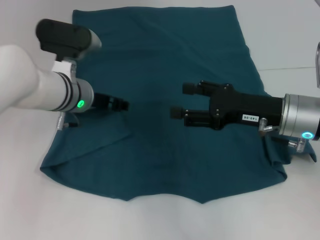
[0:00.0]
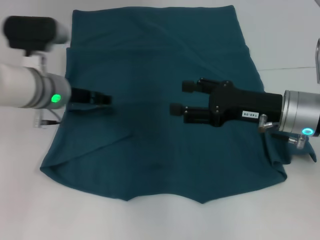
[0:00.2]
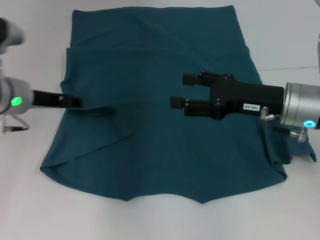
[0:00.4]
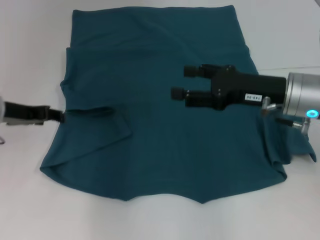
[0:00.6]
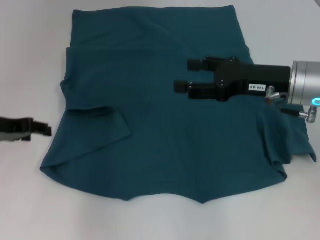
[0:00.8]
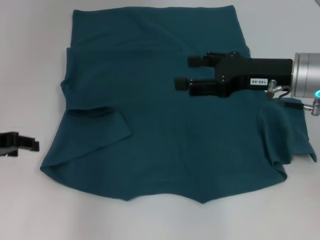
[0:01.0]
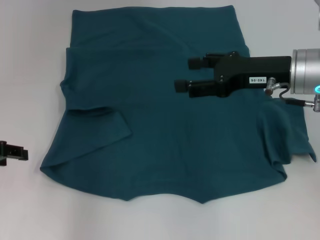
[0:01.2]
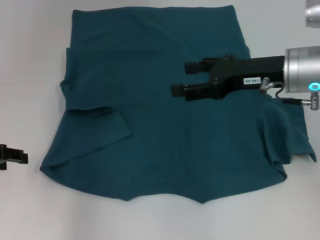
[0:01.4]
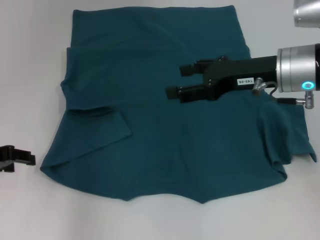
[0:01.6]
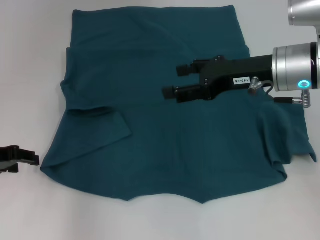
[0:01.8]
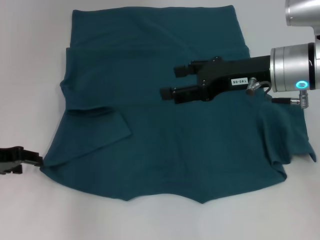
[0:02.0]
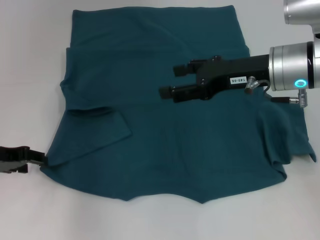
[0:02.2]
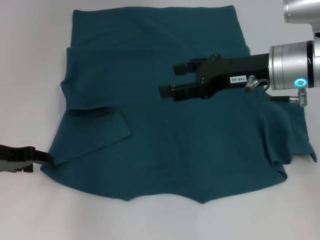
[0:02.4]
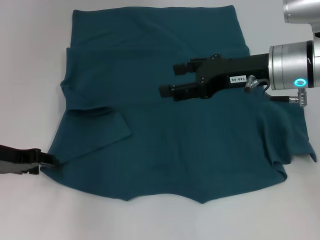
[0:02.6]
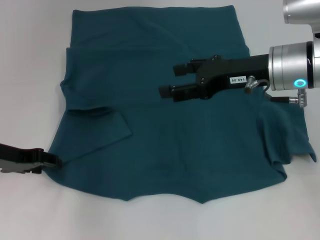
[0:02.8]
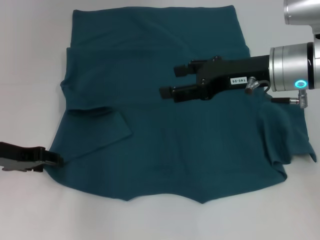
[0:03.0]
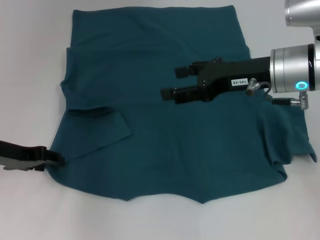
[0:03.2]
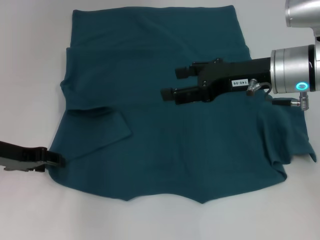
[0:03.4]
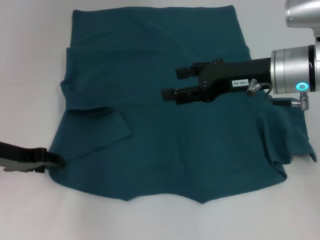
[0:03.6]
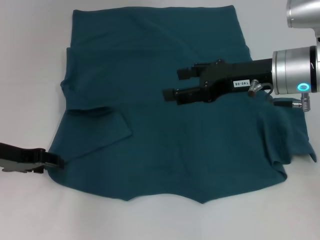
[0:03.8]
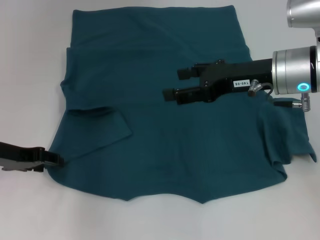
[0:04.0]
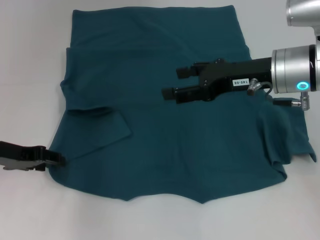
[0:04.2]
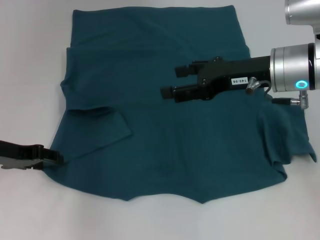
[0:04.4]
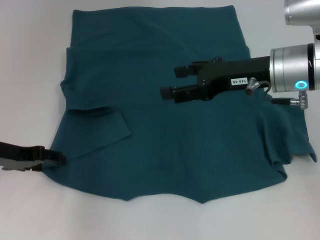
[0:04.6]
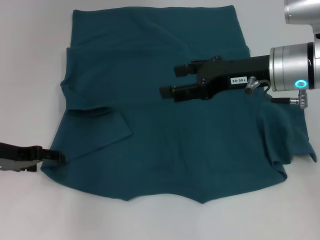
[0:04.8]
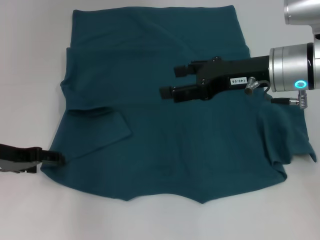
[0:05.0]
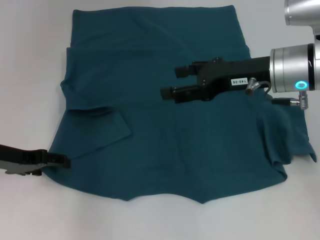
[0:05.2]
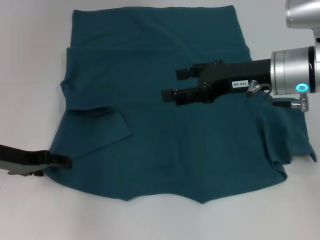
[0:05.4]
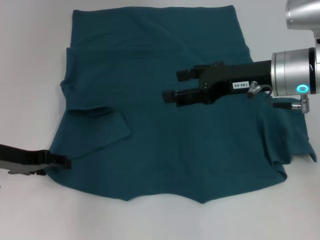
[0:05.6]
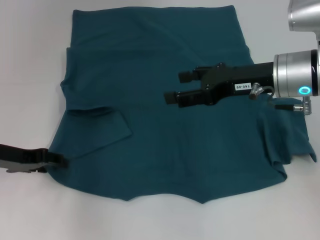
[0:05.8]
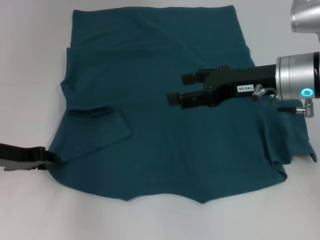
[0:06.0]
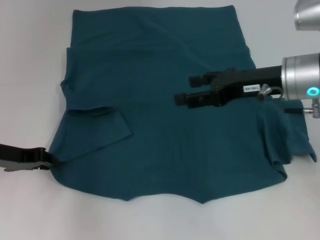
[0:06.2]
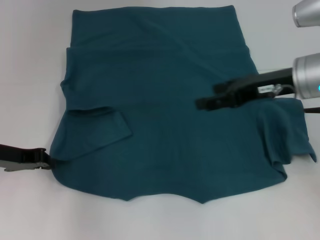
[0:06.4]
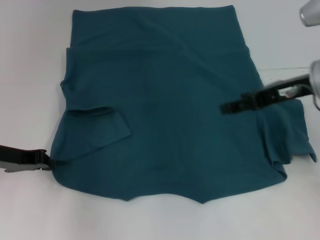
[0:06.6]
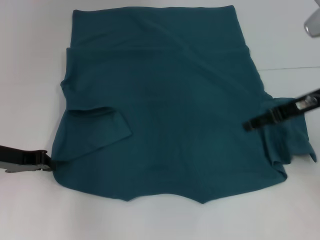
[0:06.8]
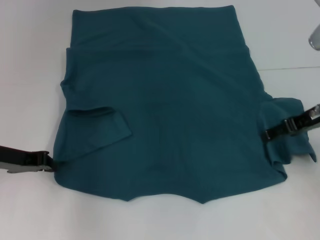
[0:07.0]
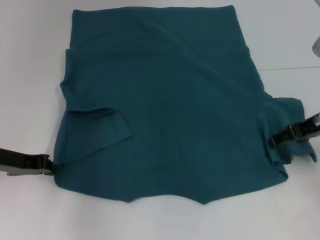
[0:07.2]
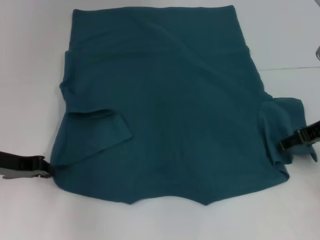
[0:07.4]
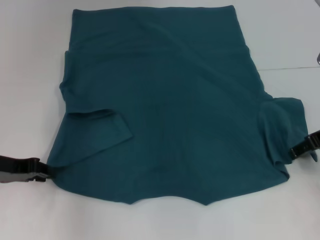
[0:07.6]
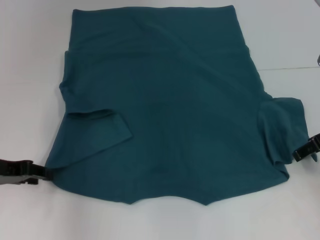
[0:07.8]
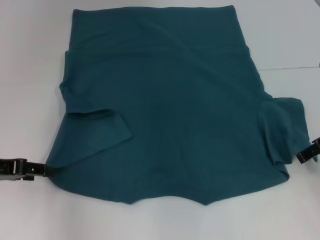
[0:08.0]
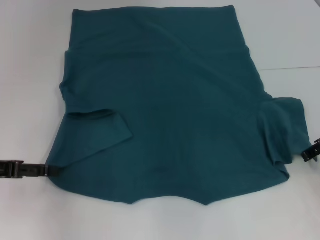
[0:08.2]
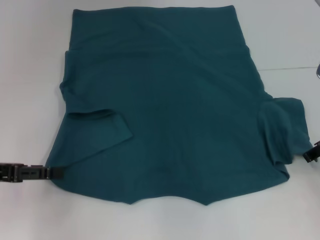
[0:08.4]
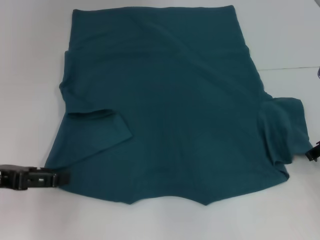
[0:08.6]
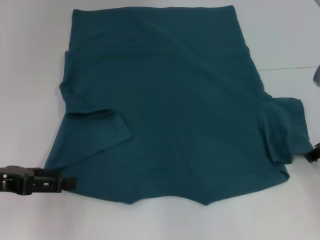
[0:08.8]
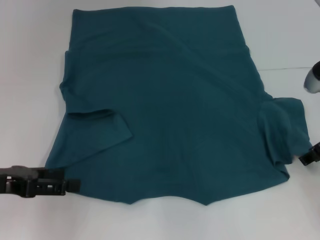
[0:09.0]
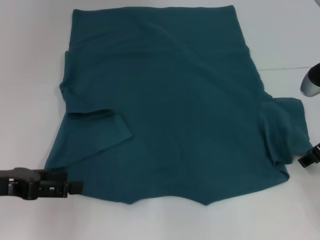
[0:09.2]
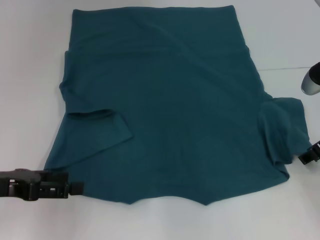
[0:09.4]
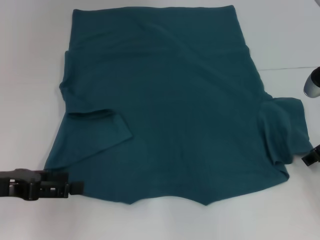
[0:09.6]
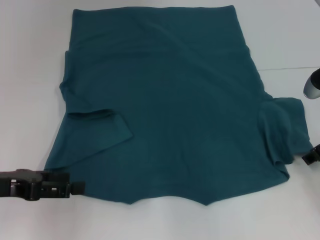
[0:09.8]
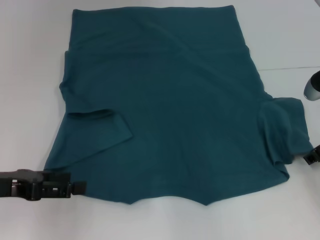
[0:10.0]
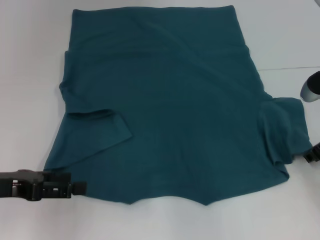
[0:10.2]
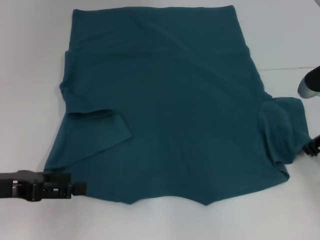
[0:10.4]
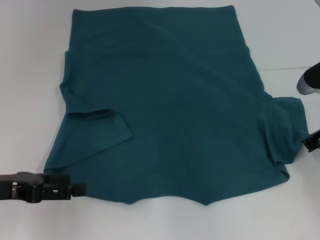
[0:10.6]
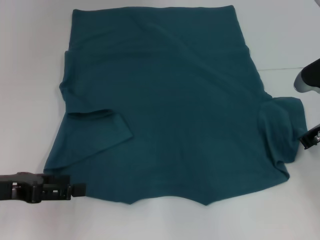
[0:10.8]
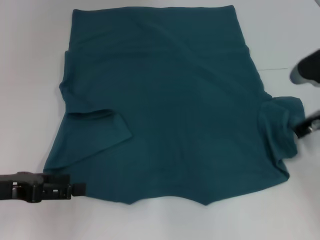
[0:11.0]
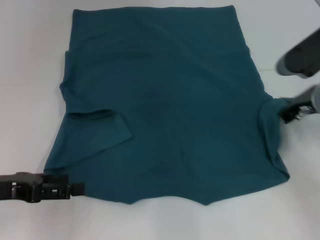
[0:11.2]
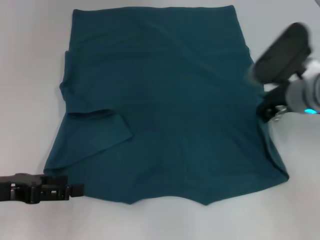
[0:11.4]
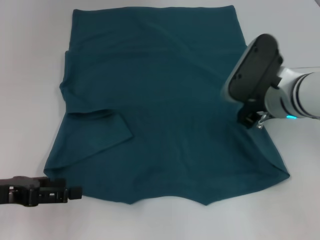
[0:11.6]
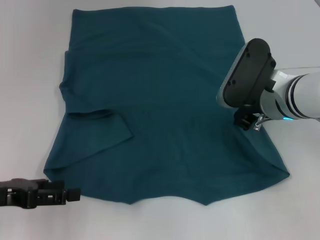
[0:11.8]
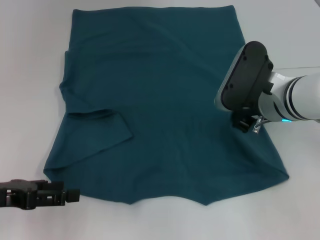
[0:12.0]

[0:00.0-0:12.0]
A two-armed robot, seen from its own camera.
0:00.0 to 0:01.6: The right gripper heads upward, covering about 5 cm. Meanwhile the left gripper heads to the left and backward, covering approximately 20 cm.
0:01.6 to 0:03.0: The grippers make only small movements.
0:03.0 to 0:04.4: The two grippers keep their place.
0:04.4 to 0:06.0: The grippers move only a little.
0:06.0 to 0:07.6: The right gripper travels to the right by some 10 cm, while the left gripper closes.
0:07.6 to 0:09.0: The left gripper shifts roughly 5 cm backward, and opens up.
0:09.0 to 0:10.4: There are only small adjustments of the grippers.
0:10.4 to 0:12.0: The right gripper is displaced to the left by roughly 10 cm, and closes up.

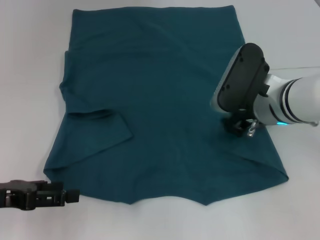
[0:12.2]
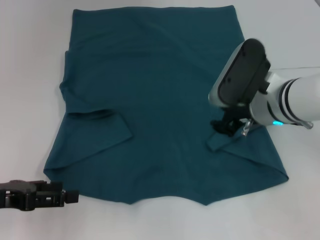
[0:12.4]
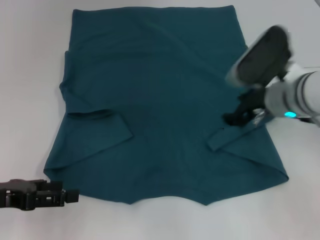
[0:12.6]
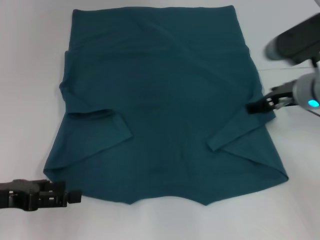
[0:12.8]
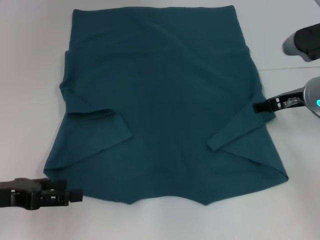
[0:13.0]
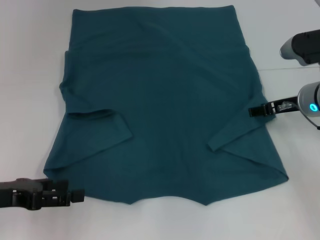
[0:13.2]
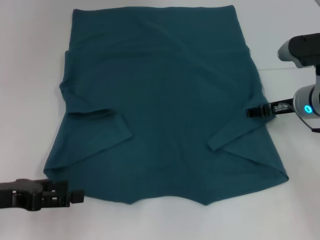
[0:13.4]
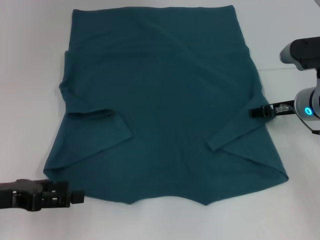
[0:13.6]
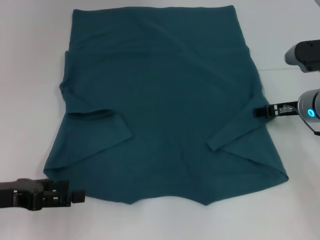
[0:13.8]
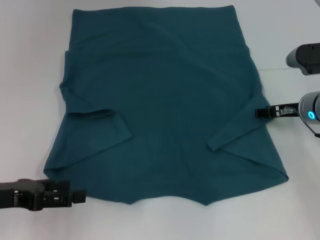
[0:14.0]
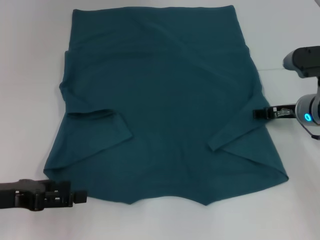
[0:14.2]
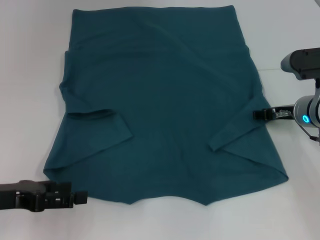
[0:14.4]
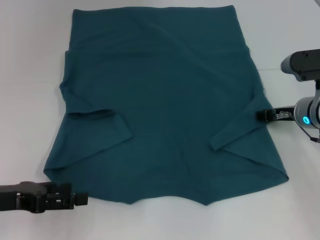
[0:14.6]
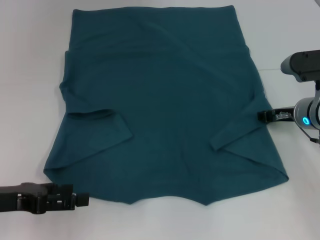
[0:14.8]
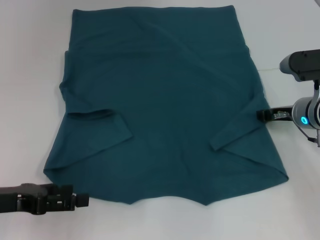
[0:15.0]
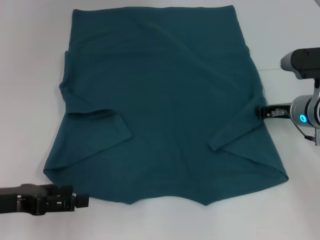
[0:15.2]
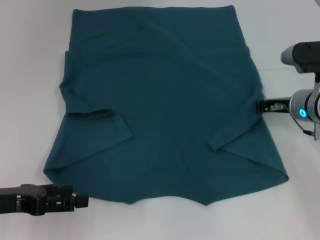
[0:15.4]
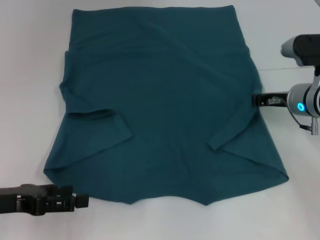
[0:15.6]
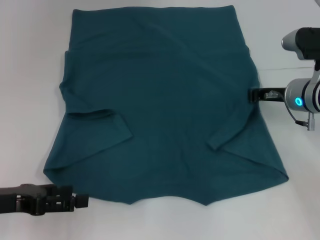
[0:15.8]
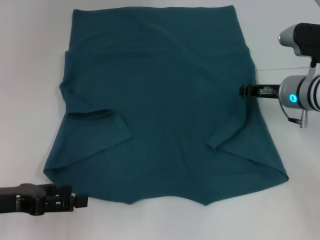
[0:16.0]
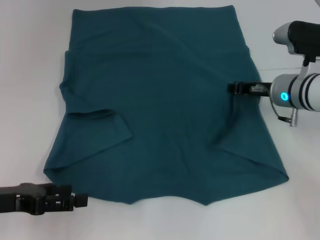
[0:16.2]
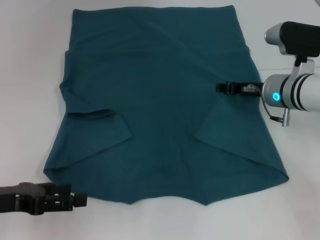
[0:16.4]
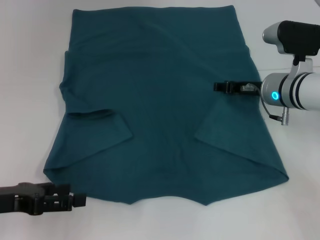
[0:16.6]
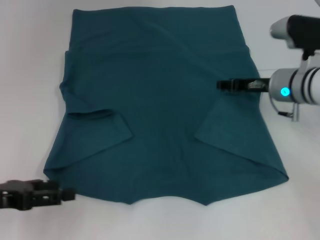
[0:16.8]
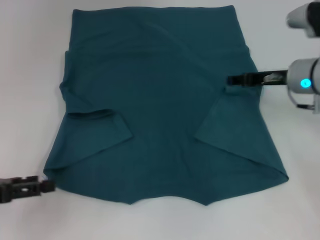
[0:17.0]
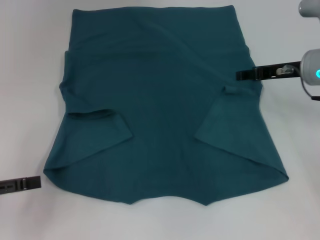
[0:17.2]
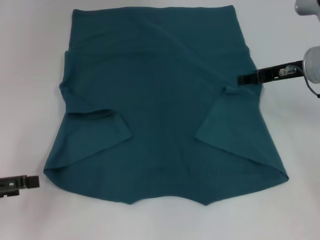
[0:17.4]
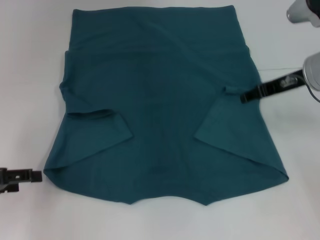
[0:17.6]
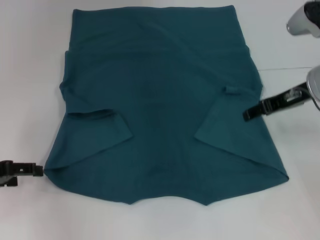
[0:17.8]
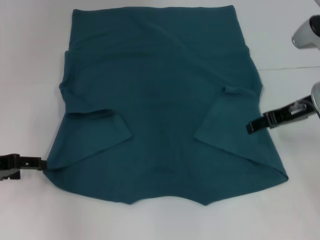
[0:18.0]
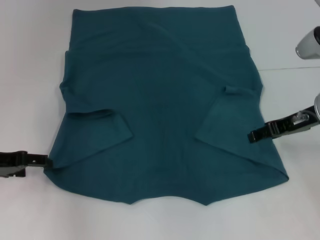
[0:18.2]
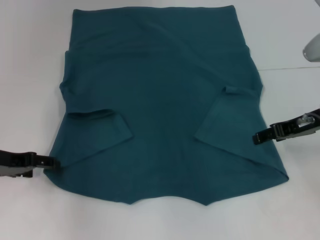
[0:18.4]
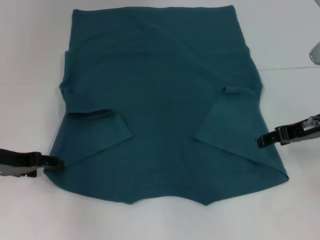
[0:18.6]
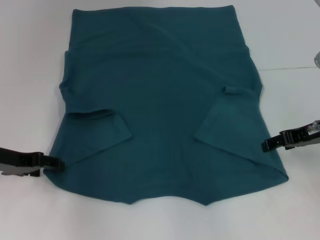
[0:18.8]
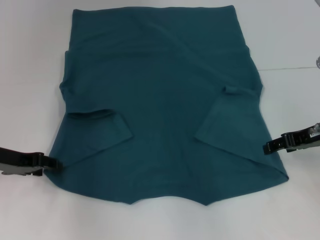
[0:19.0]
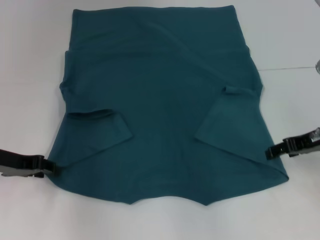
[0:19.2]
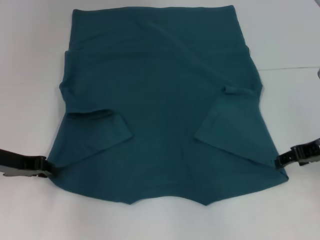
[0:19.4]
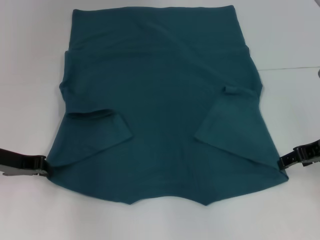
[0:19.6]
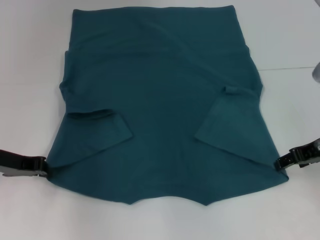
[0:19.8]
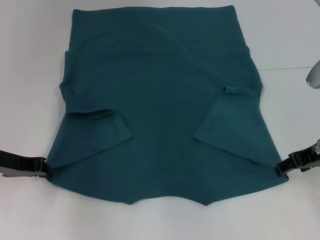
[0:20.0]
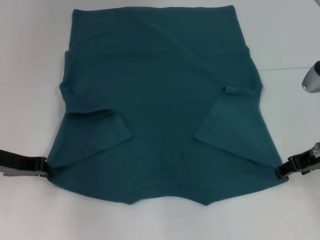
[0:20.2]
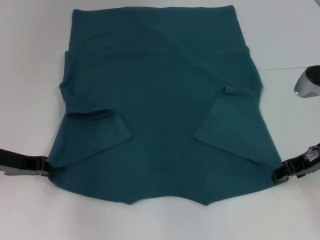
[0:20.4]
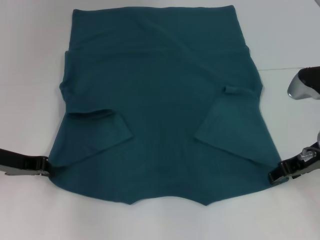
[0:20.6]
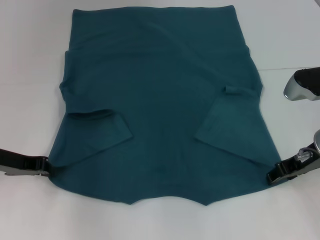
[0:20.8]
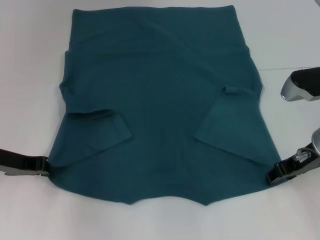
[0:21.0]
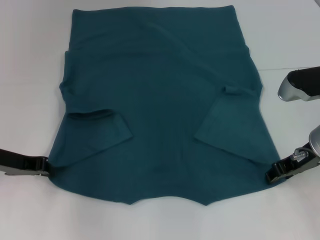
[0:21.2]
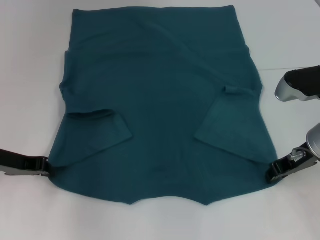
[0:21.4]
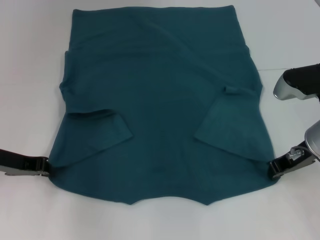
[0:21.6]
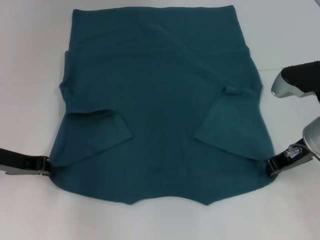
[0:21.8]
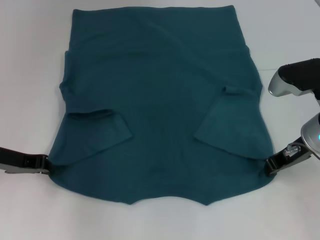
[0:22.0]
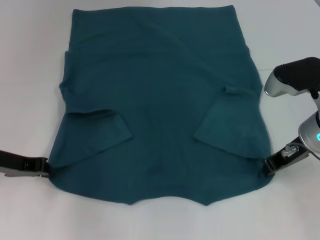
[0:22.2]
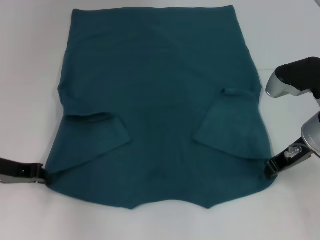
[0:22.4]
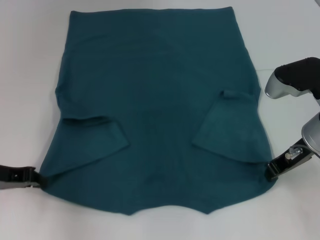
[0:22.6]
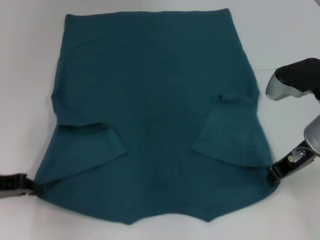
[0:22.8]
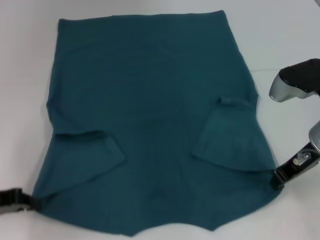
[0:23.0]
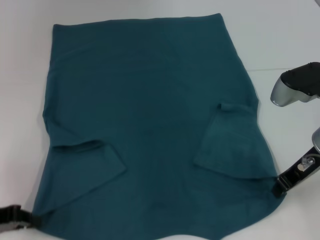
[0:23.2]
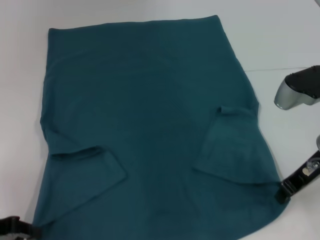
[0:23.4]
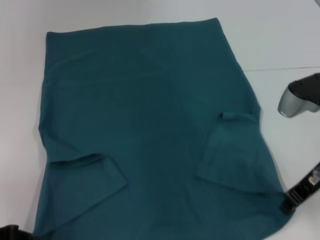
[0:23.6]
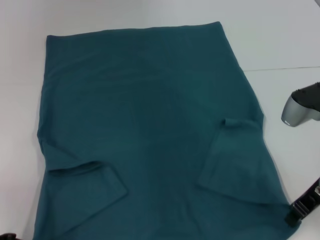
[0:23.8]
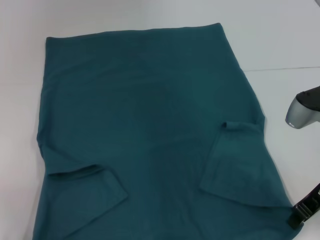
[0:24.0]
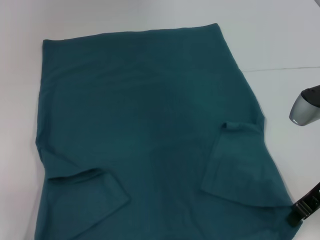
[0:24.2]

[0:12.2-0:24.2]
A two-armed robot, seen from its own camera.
Step, 0:12.2 to 0:17.0: Fold the bottom right sleeve to the right.
Step, 0:17.2 to 0:19.8: Grab the bottom left corner with your left hand.
Step, 0:20.0 to 0:22.0: Grab the bottom right corner with your right hand.
0:12.2 to 0:13.8: The right gripper is displaced to the right and downward by roughly 10 cm, and opens up.
0:13.8 to 0:15.2: The right gripper closes up.
0:15.2 to 0:16.6: The right gripper moves some 5 cm, and closes and opens again.
0:16.6 to 0:18.2: The right gripper is displaced backward and upward by about 10 cm. Meanwhile the left gripper shifts about 10 cm forward.
0:18.2 to 0:19.8: The left gripper closes its fingers.
0:19.8 to 0:21.2: The grippers stay close to where they were, moving slightly.
0:21.2 to 0:22.6: The right gripper closes its fingers.
0:22.6 to 0:24.2: The left gripper heads backward, covering roughly 10 cm. The right gripper ends up about 5 cm from where it was.
